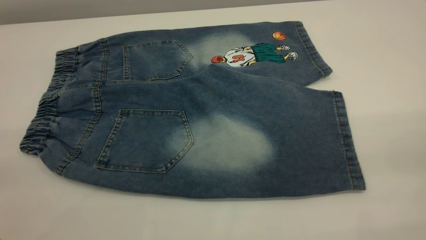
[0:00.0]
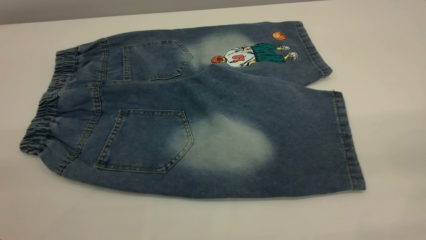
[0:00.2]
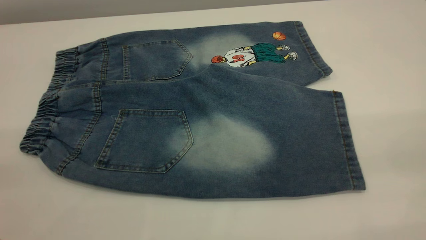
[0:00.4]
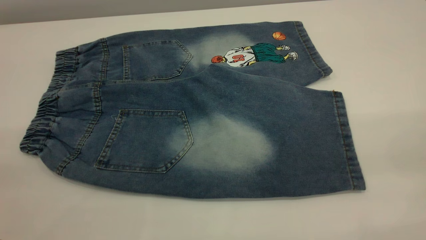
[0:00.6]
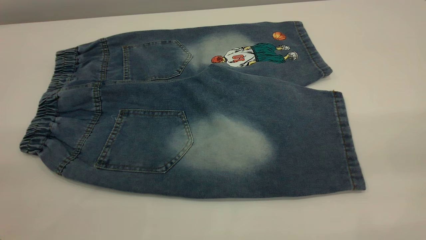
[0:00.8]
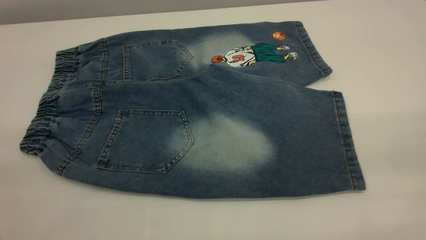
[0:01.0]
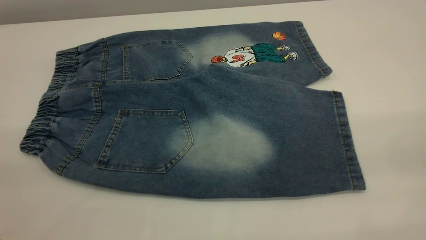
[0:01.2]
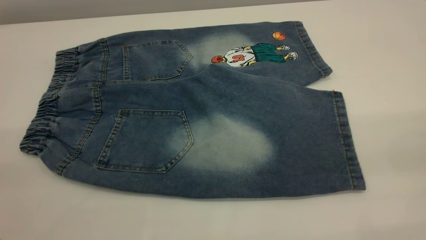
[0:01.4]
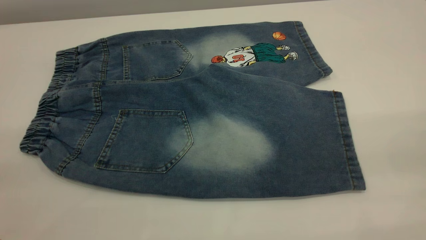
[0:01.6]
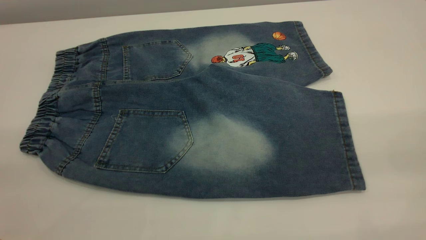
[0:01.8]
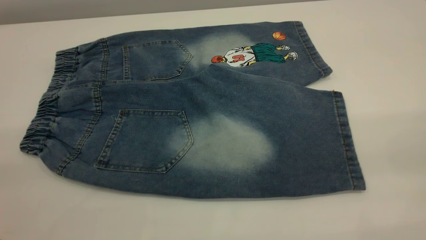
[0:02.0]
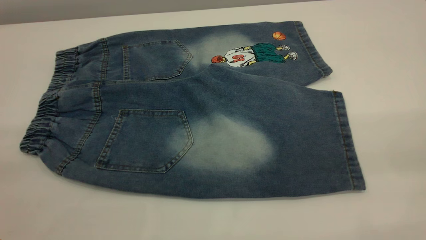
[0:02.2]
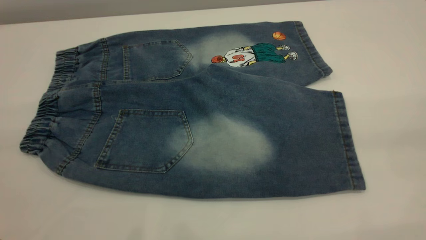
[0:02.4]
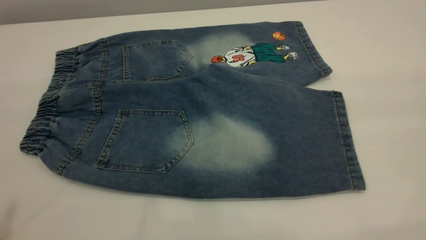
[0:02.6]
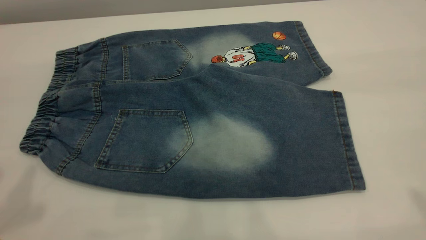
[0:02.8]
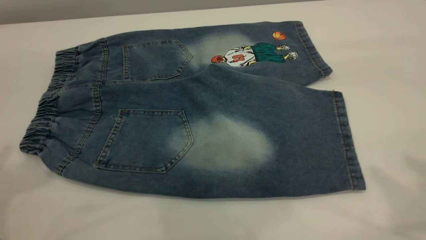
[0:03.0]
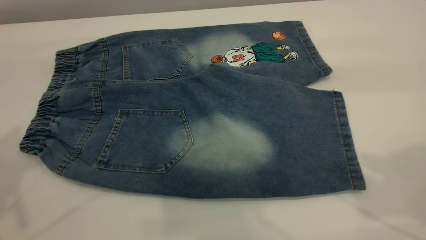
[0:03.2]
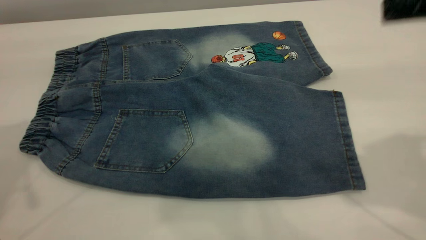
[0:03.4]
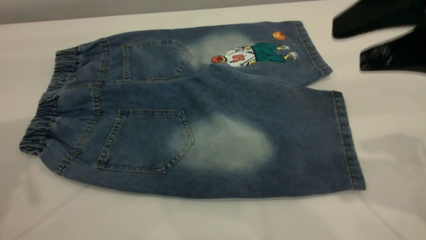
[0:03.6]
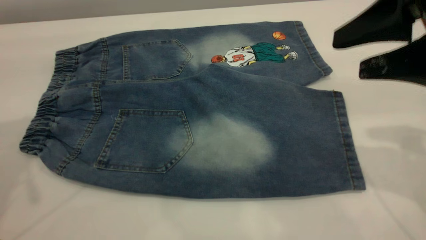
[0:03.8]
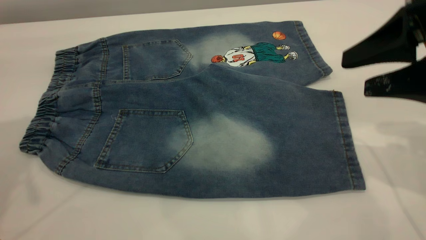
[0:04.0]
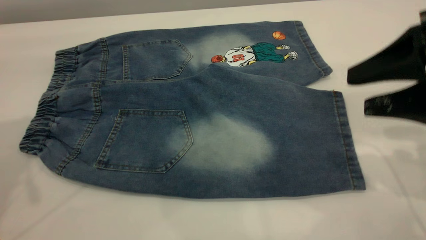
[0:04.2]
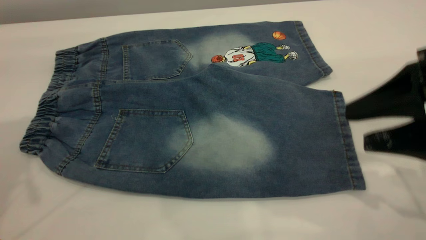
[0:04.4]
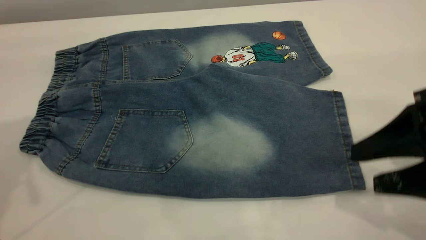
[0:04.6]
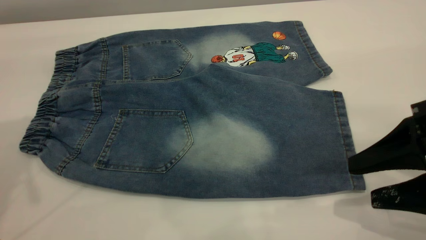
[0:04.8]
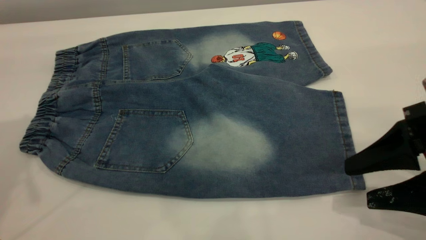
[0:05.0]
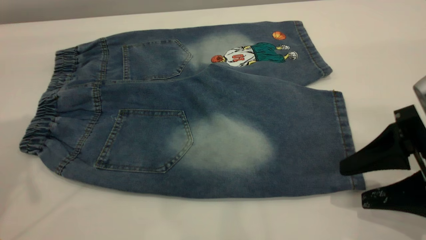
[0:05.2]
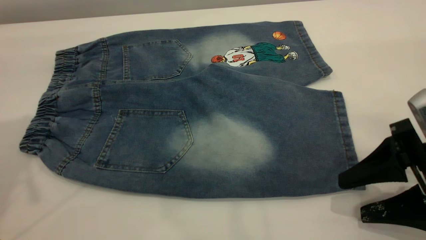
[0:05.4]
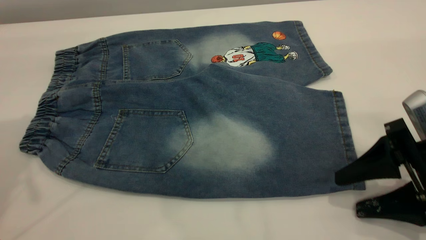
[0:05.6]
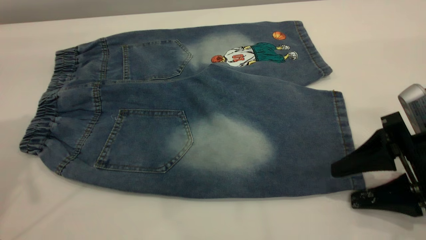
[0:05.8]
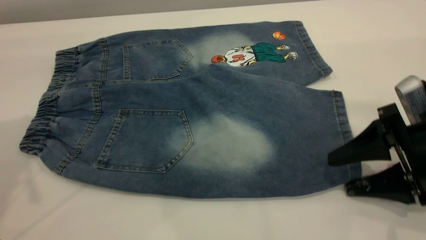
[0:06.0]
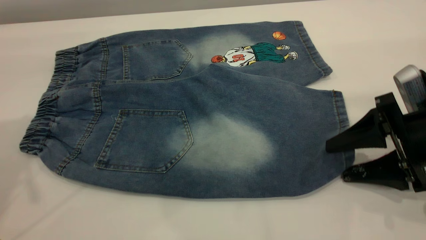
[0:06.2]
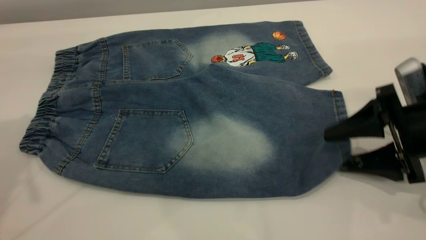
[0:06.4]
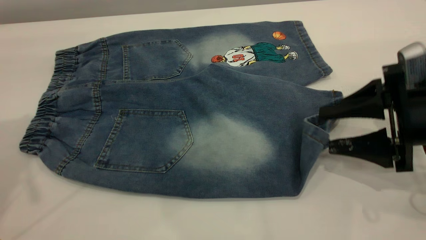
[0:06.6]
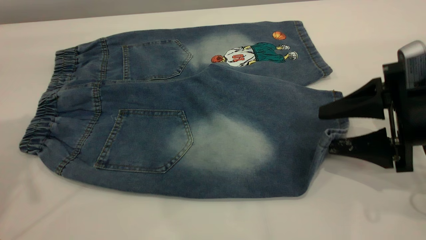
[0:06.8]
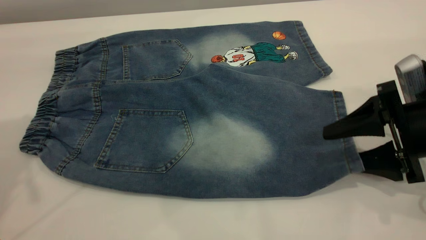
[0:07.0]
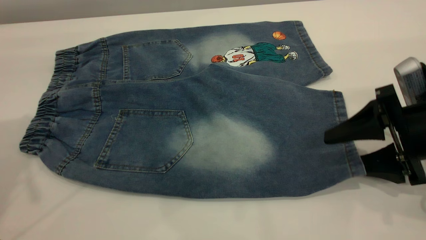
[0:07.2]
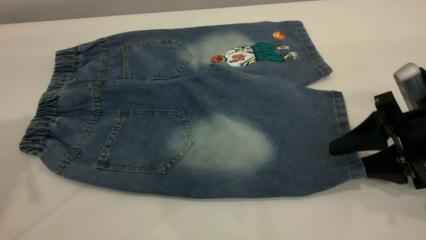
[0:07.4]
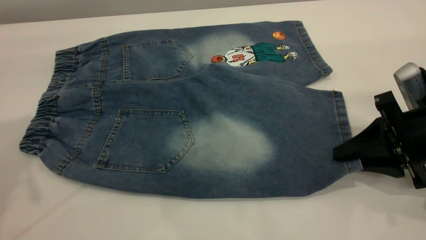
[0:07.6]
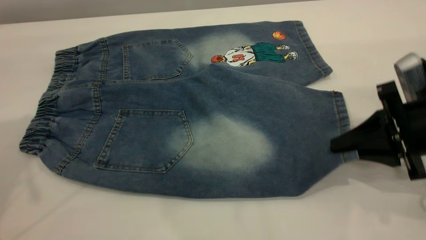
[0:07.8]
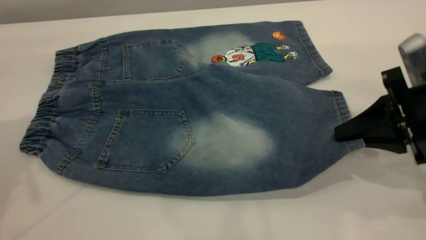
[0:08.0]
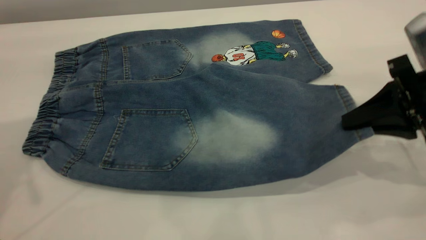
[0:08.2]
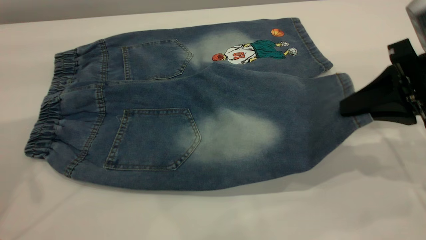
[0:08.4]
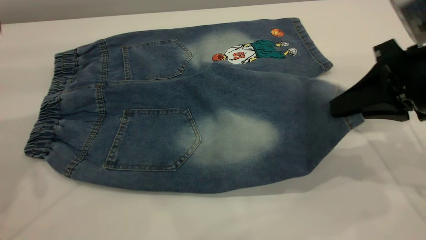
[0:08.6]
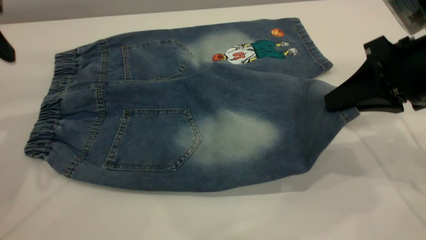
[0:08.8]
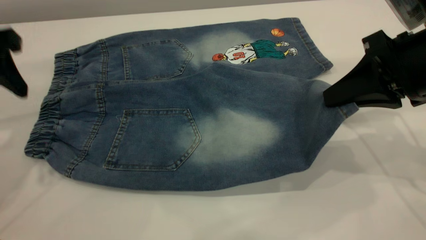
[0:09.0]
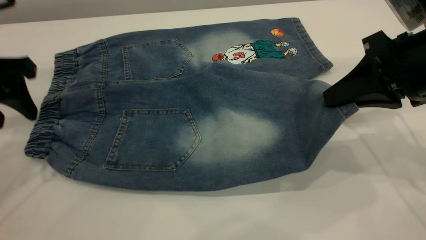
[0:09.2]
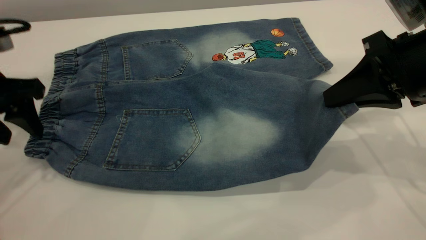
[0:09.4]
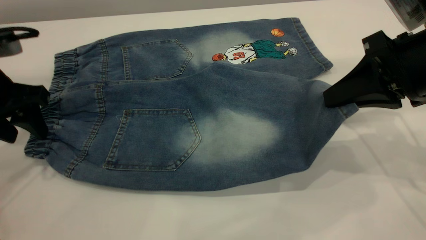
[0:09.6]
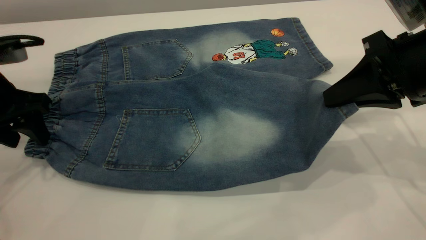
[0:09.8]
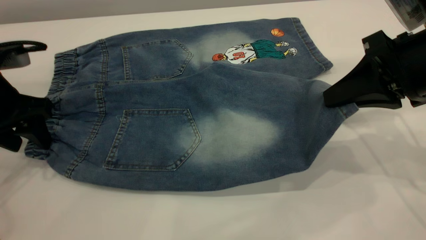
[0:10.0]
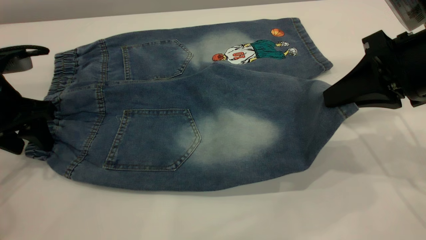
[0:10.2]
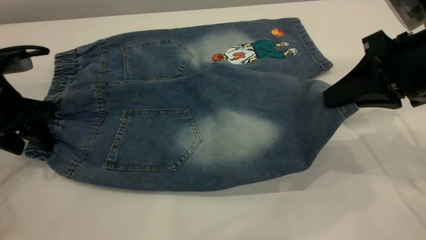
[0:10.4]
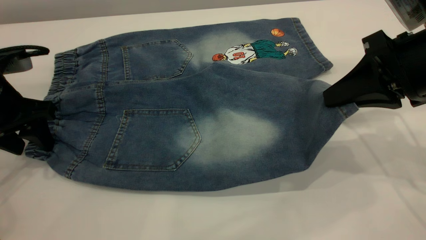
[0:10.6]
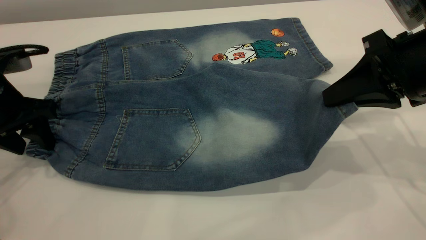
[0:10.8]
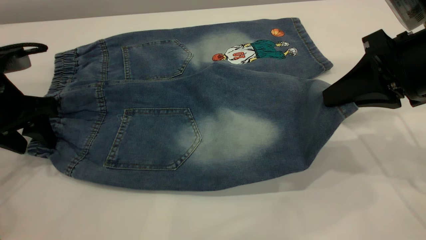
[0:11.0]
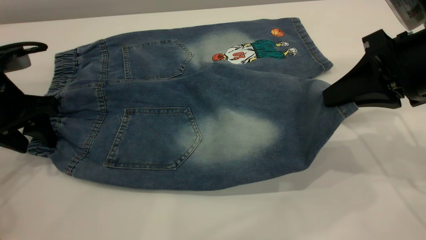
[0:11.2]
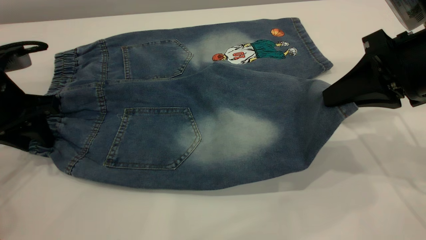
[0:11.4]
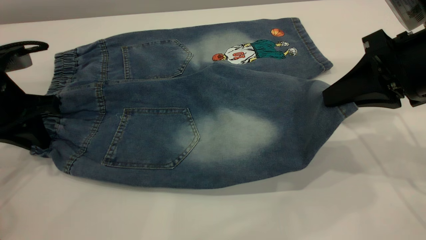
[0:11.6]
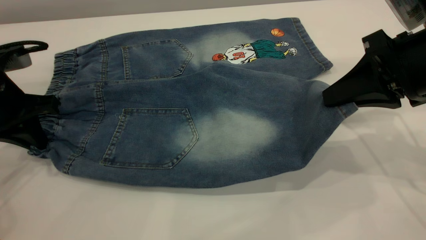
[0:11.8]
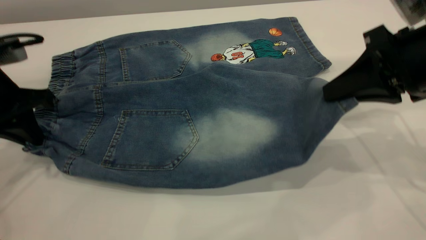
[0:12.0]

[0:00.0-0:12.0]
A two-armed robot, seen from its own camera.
0:00.0 to 0:01.6: The two grippers keep their place.
0:03.0 to 0:04.4: The right gripper is displaced downward by some 20 cm, while the left gripper goes about 5 cm forward.
0:04.4 to 0:06.0: The right gripper heads downward, covering about 10 cm.
0:06.0 to 0:07.6: The right gripper closes.
0:07.6 to 0:09.0: The left gripper goes approximately 10 cm downward. The right gripper shifts some 10 cm upward.
0:09.0 to 0:10.4: The left gripper heads downward, covering roughly 10 cm.
0:10.4 to 0:12.0: The left gripper closes up.

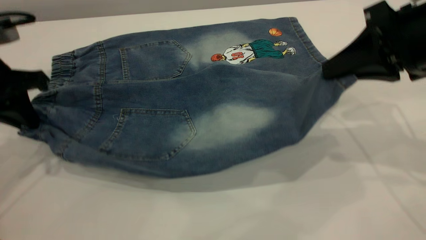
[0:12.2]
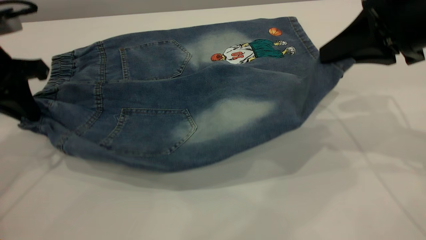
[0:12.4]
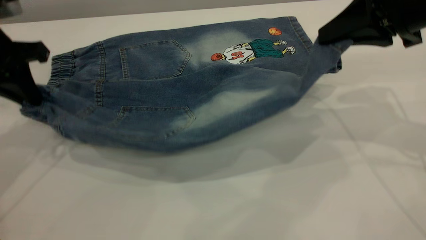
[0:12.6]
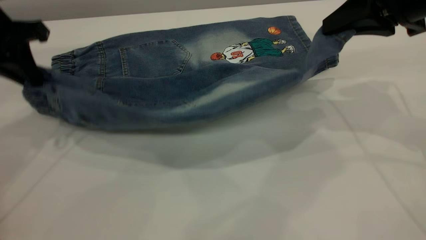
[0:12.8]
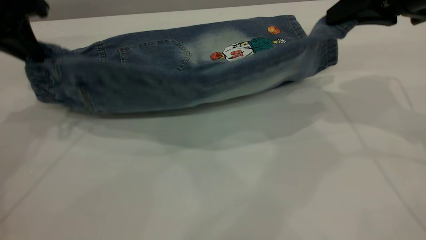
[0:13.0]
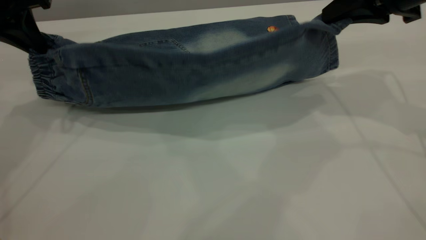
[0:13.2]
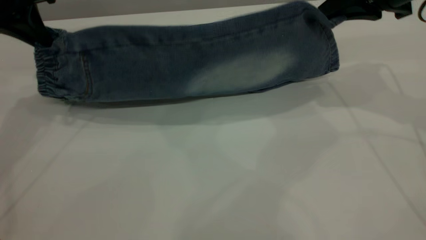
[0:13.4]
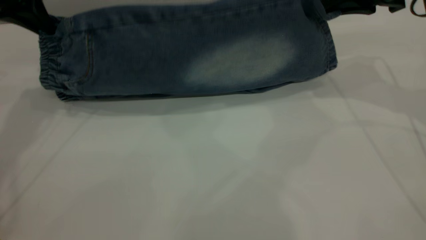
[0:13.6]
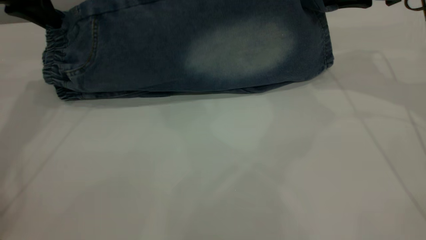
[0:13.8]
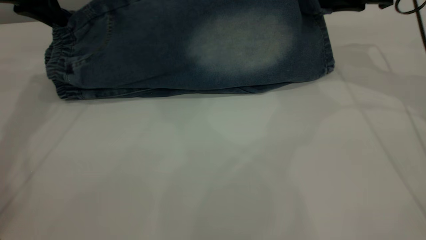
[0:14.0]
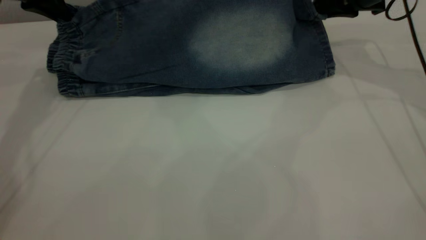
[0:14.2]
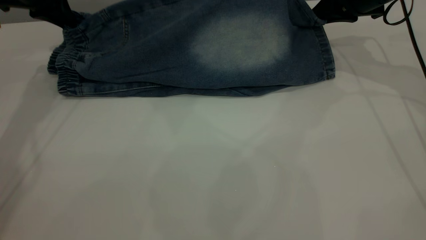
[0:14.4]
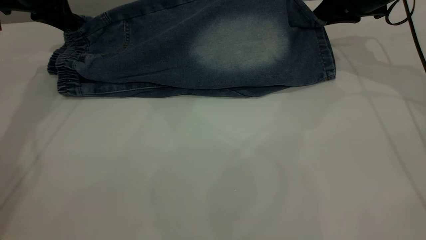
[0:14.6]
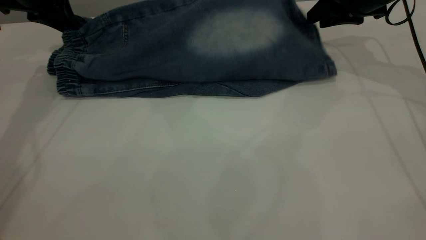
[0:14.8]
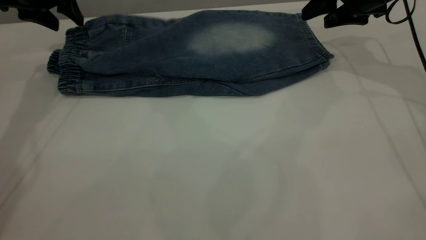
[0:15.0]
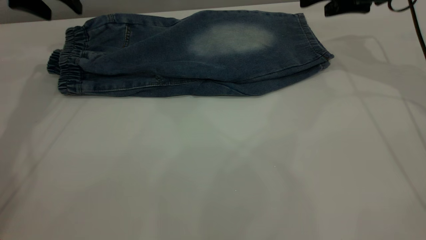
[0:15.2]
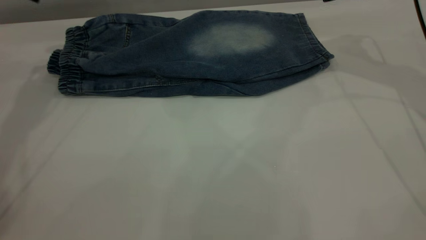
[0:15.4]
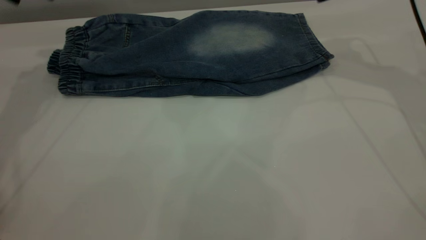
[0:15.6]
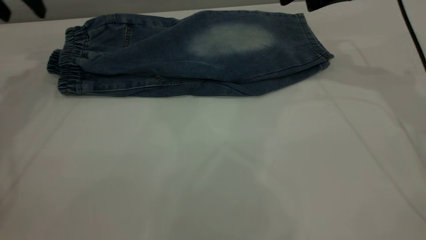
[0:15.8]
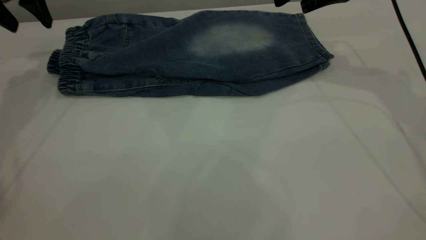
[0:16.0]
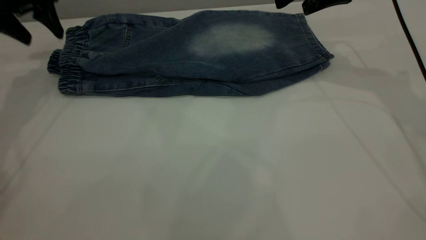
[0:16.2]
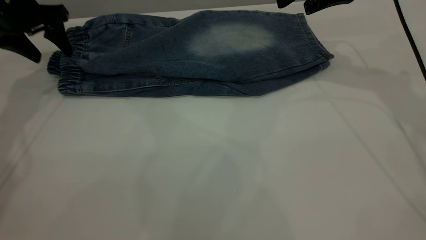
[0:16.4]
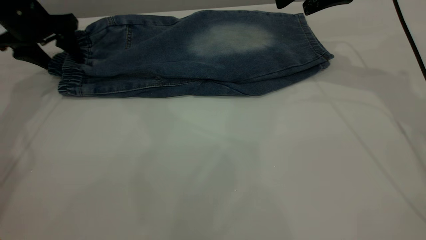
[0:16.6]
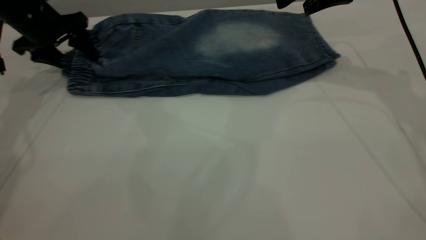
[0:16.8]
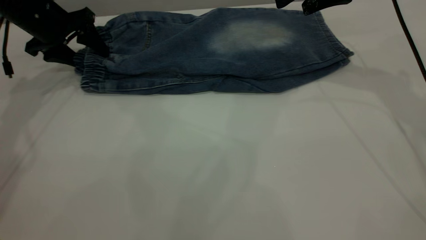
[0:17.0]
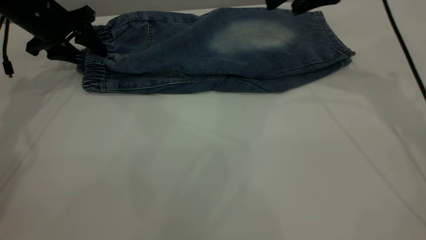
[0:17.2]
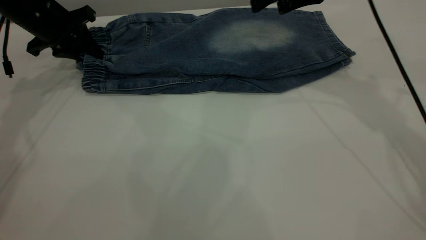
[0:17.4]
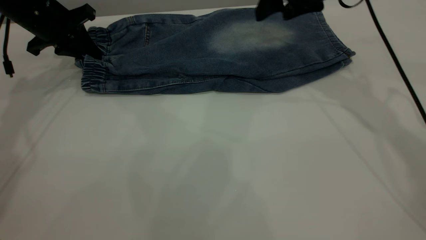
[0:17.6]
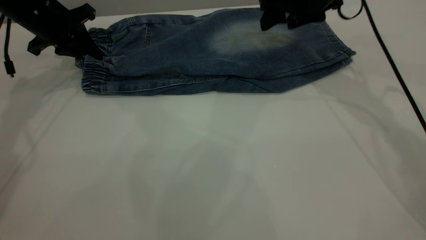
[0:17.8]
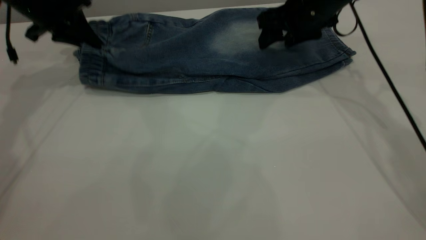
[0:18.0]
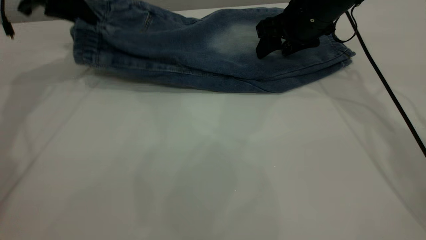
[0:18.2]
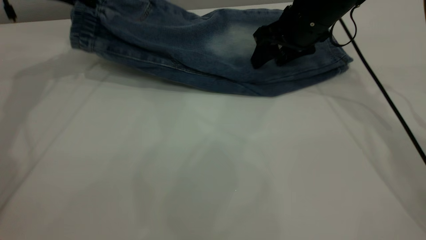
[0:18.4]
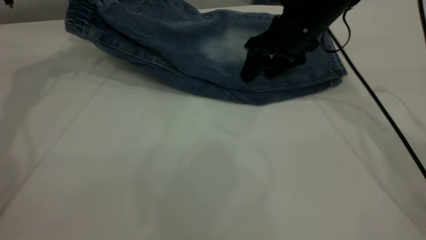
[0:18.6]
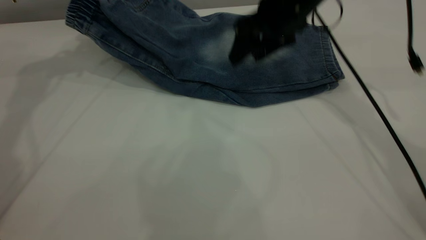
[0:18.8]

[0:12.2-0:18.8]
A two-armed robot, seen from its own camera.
Step, 0:12.2 to 0:15.4: Fold the bottom of the pants upward.
0:12.2 to 0:13.8: The right gripper heads forward, covering roughly 15 cm. The left gripper moves forward and upward, roughly 15 cm.
0:13.8 to 0:15.4: The right gripper opens. The left gripper opens up.
0:15.4 to 0:17.2: The right gripper travels to the left by approximately 5 cm, while the left gripper goes some 10 cm downward.
0:17.2 to 0:18.8: The left gripper goes about 10 cm upward, and closes up; the right gripper is displaced to the left by about 5 cm.
